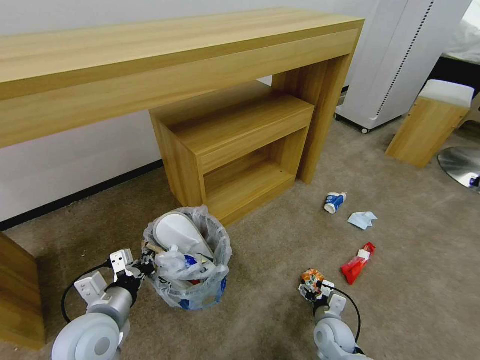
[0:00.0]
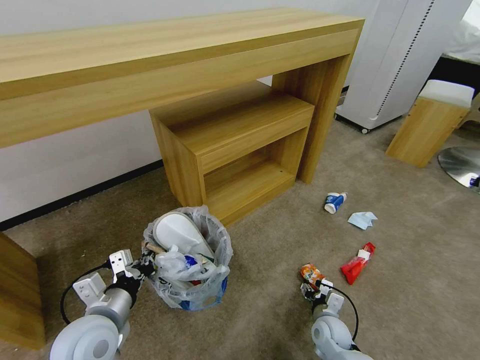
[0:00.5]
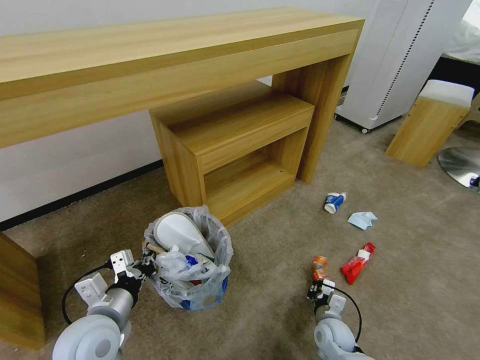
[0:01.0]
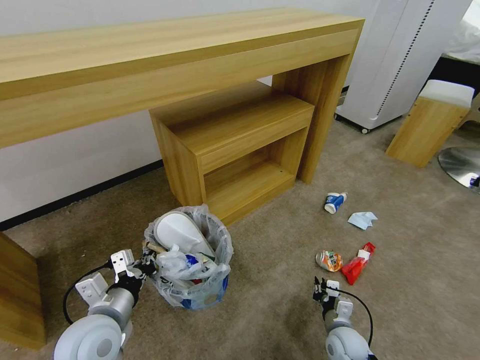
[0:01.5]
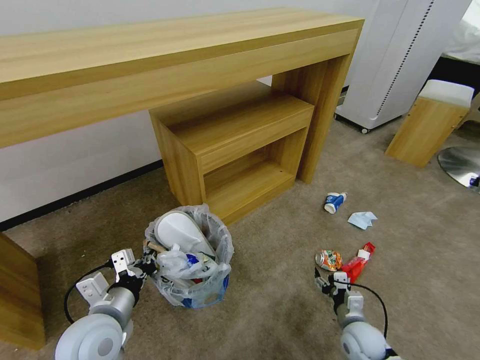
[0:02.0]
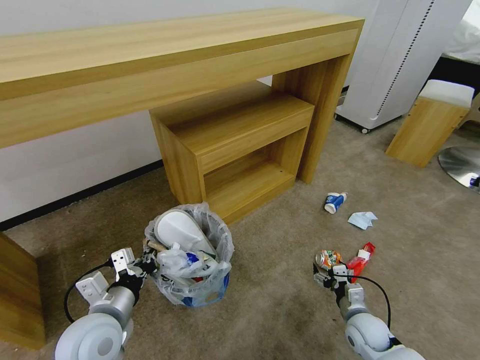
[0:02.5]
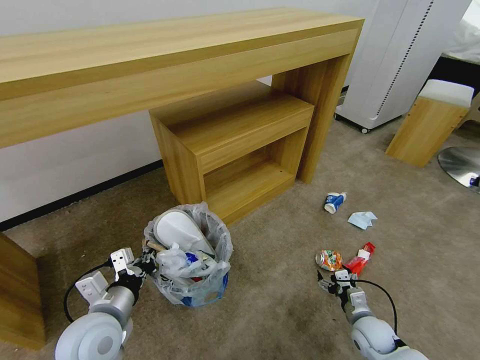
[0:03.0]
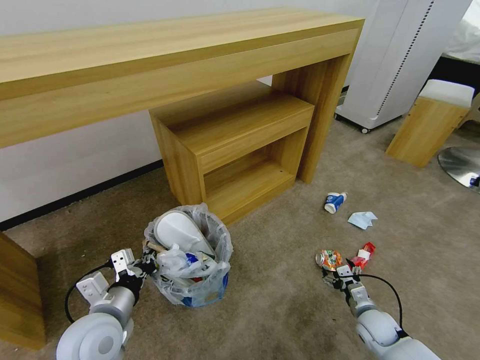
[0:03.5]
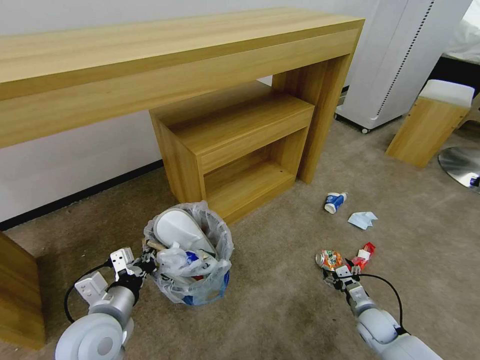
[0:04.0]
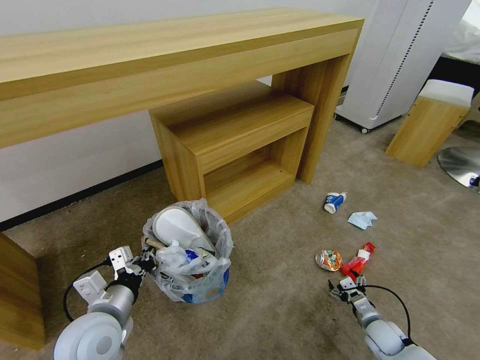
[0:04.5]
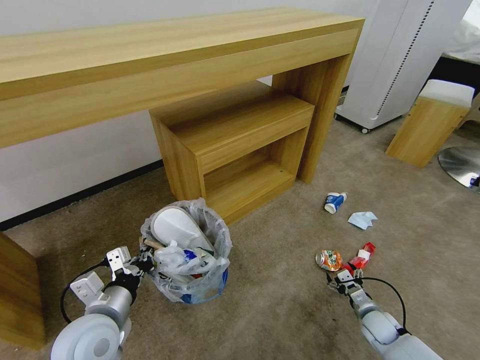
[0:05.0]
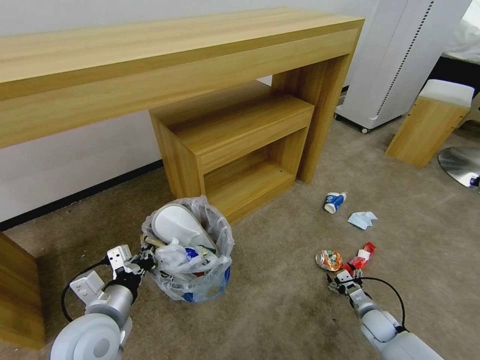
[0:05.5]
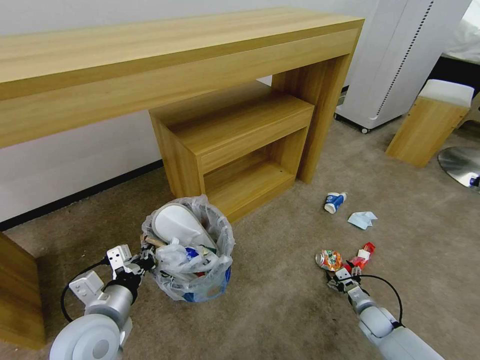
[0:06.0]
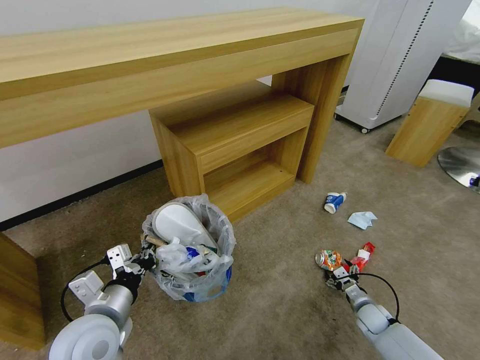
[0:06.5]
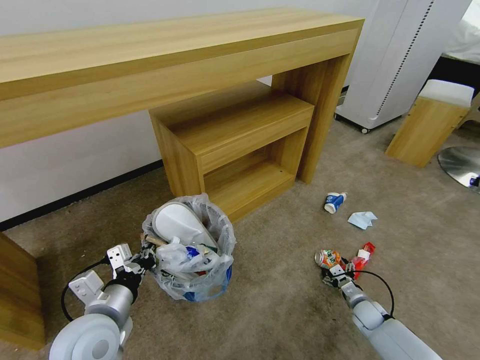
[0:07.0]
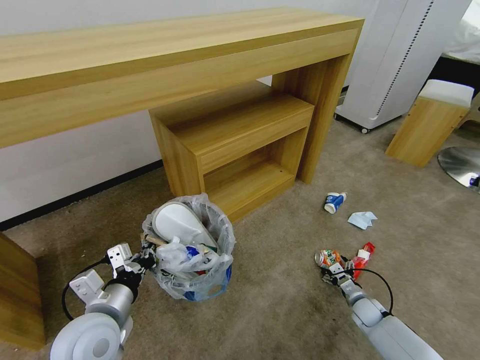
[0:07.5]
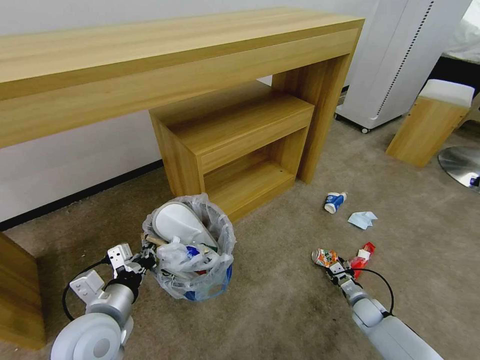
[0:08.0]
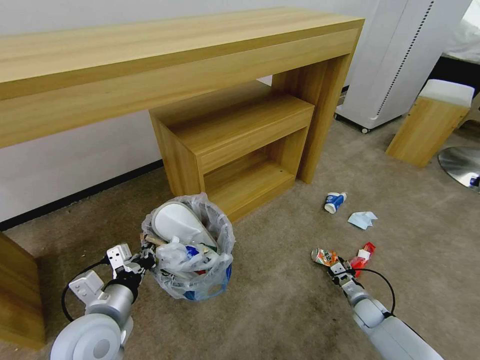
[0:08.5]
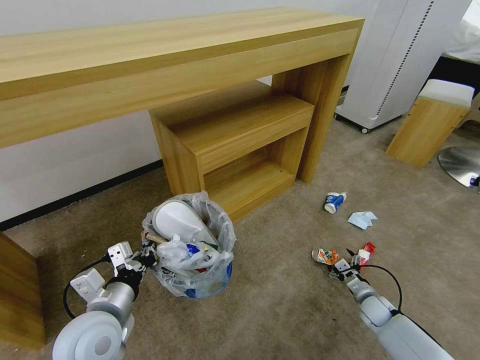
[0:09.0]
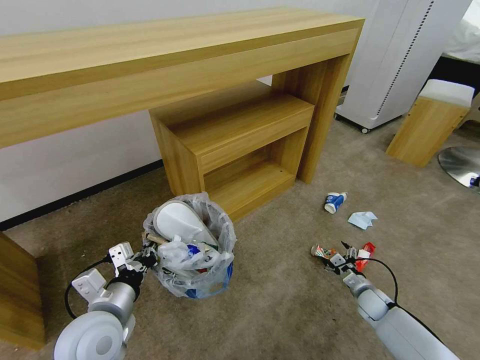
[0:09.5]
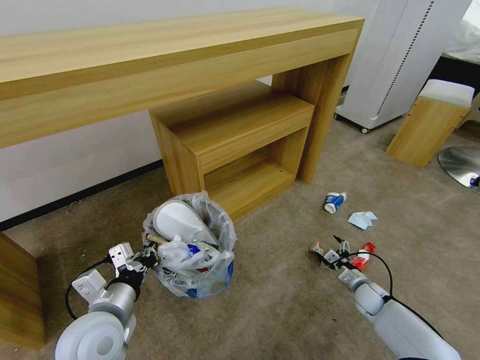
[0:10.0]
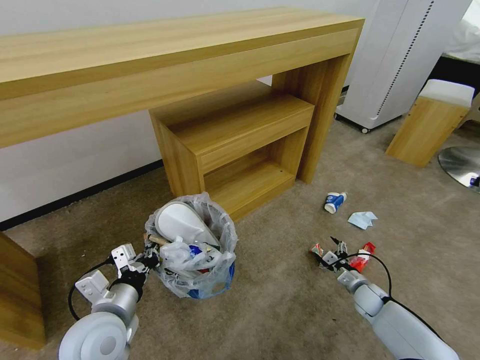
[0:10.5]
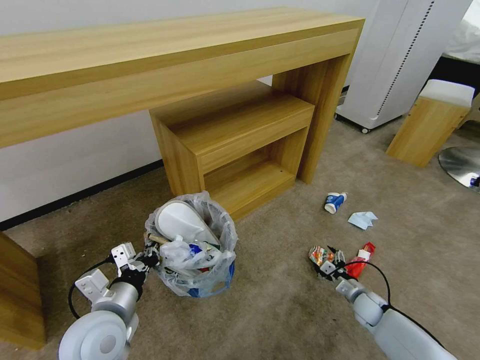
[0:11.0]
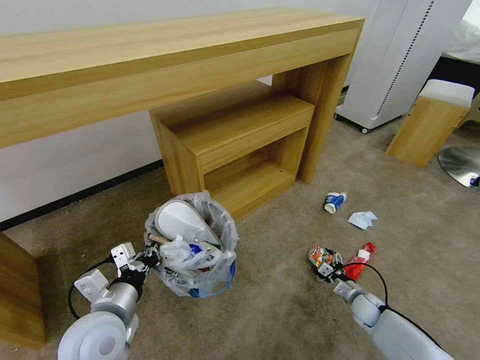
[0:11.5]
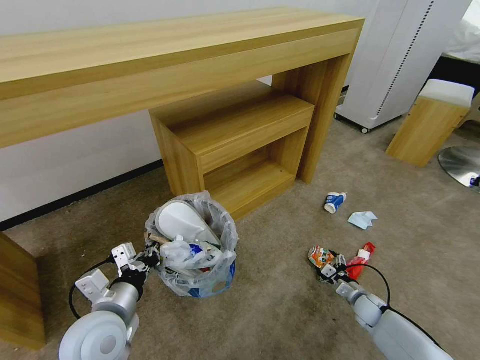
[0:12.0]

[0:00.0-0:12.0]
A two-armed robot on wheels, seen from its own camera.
Task of the whole recording: Pick up the trash bin and place the garbage on the floor into it.
0:00.0 to 0:02.0: The right gripper shifts approximately 5 cm to the right, and closes, then opens again.
0:02.0 to 0:04.0: The right gripper travels to the right by about 5 cm.
0:04.0 to 0:06.0: The right gripper ends up some 5 cm from where it was.
0:06.0 to 0:08.0: The right gripper closes.
0:08.0 to 0:10.0: The right gripper ends up roughly 5 cm from where it was, and opens up.
0:10.0 to 0:12.0: The grippers move only a little.

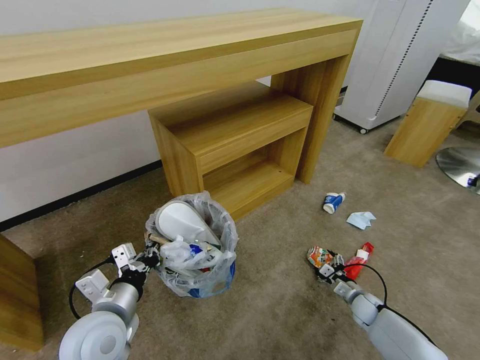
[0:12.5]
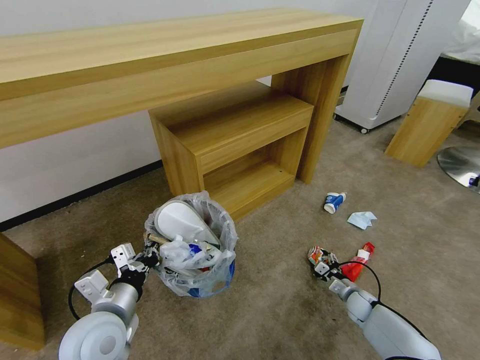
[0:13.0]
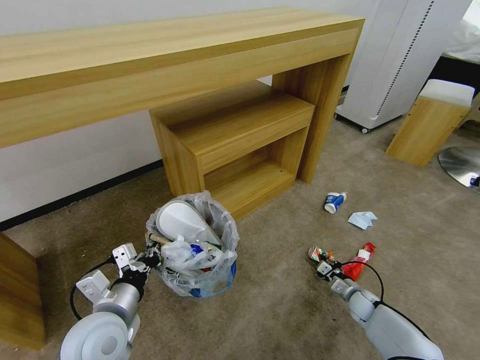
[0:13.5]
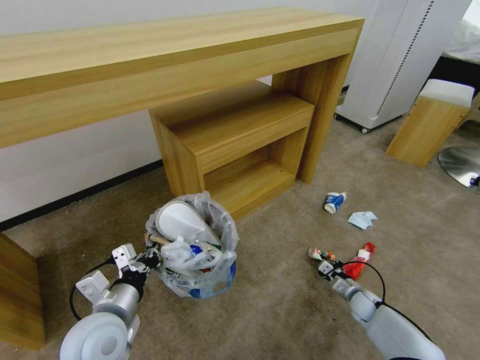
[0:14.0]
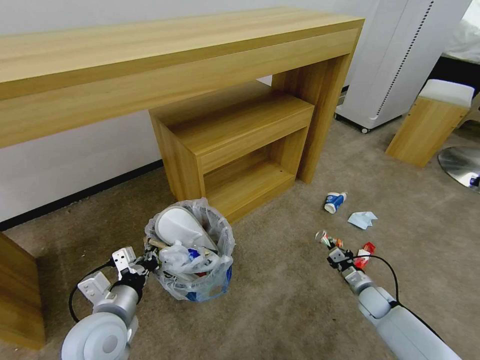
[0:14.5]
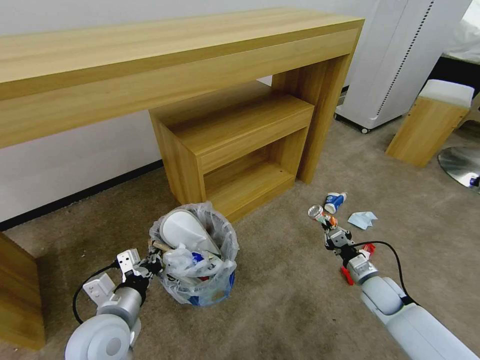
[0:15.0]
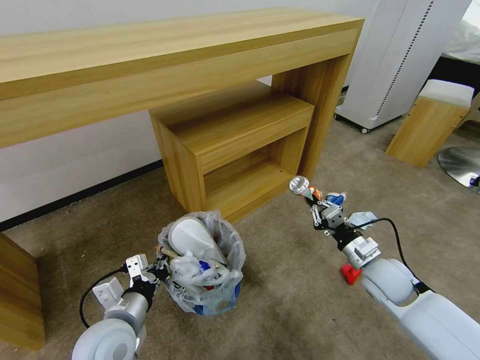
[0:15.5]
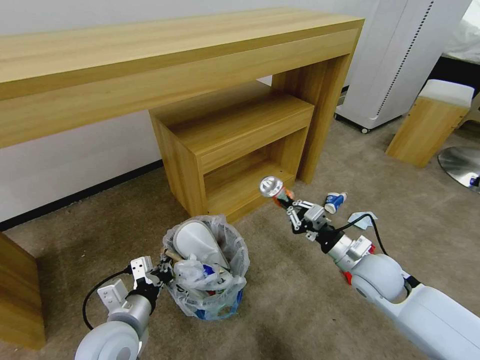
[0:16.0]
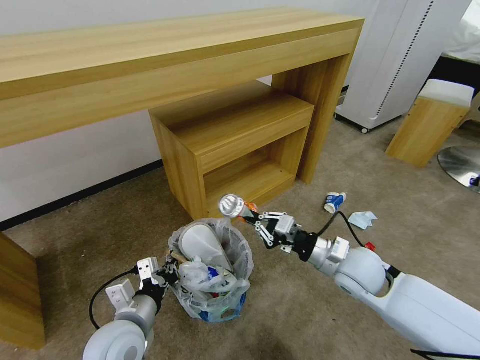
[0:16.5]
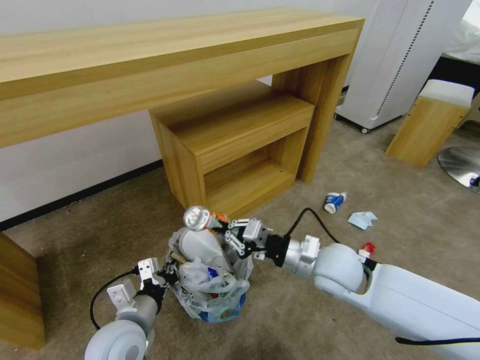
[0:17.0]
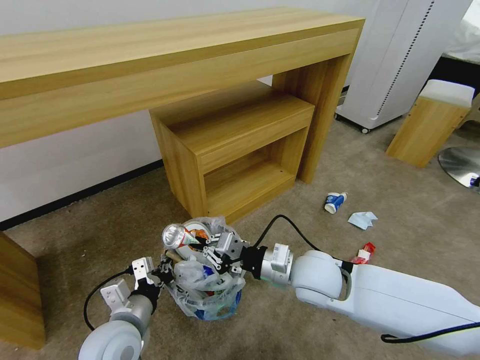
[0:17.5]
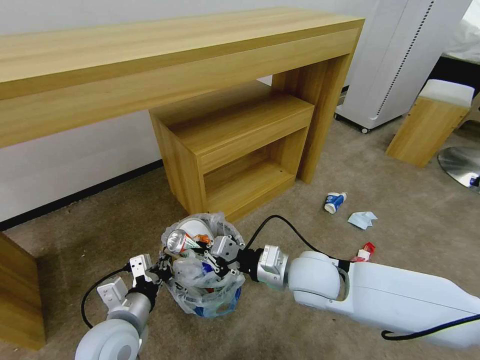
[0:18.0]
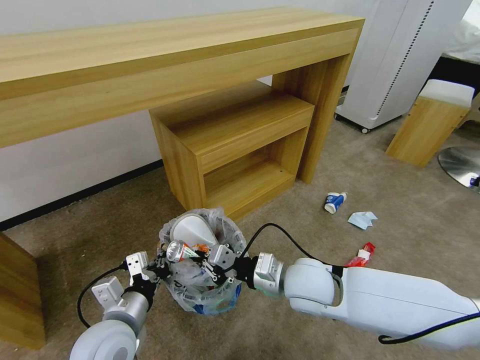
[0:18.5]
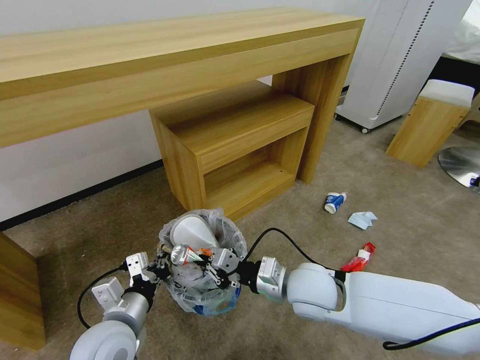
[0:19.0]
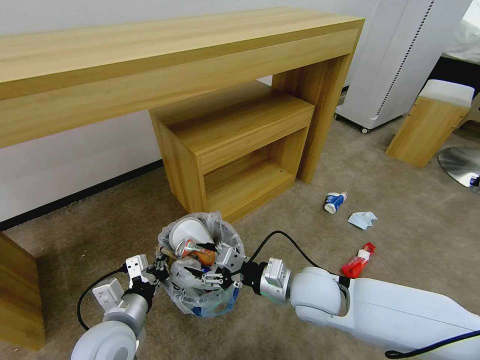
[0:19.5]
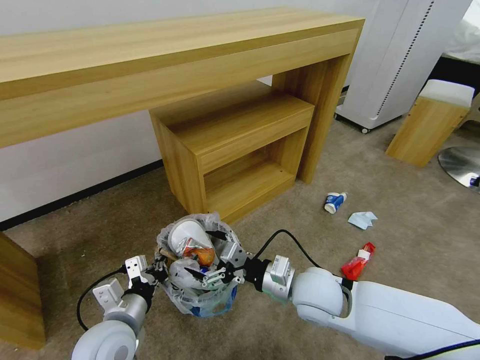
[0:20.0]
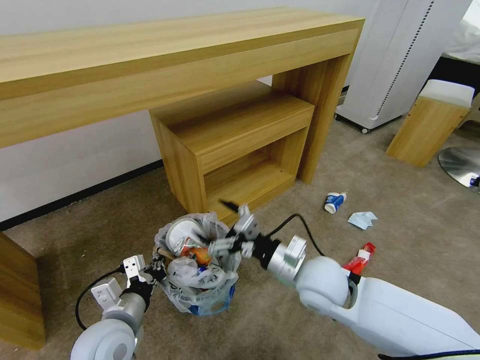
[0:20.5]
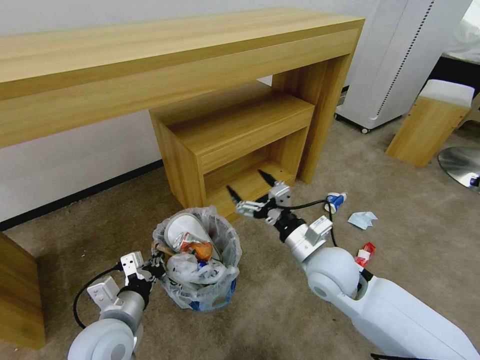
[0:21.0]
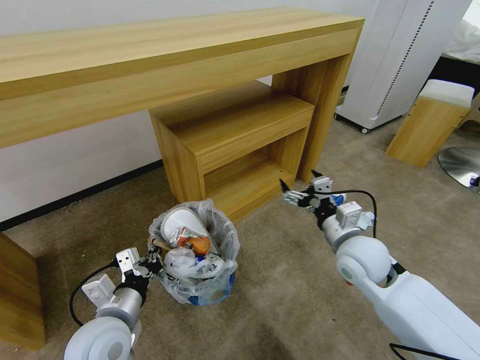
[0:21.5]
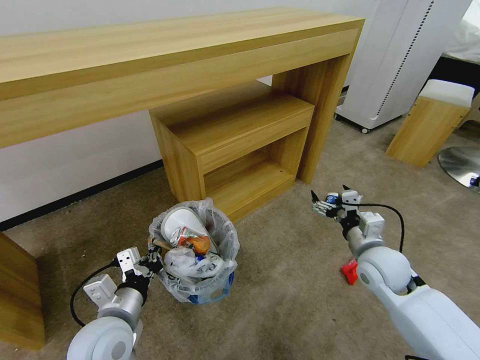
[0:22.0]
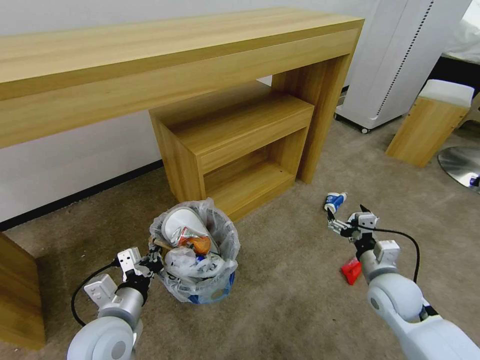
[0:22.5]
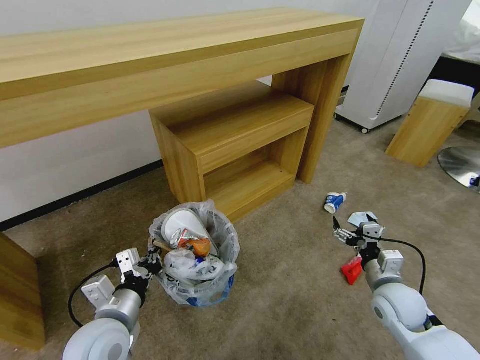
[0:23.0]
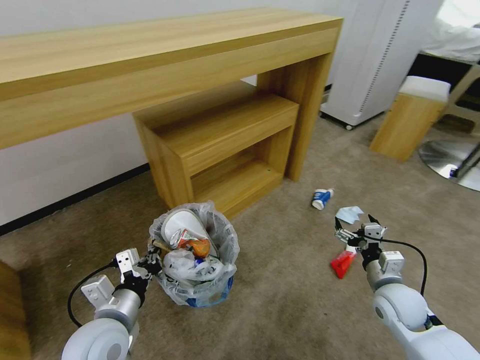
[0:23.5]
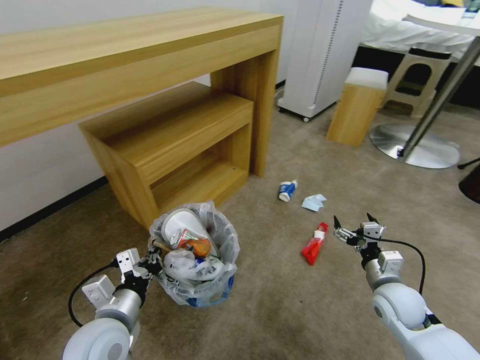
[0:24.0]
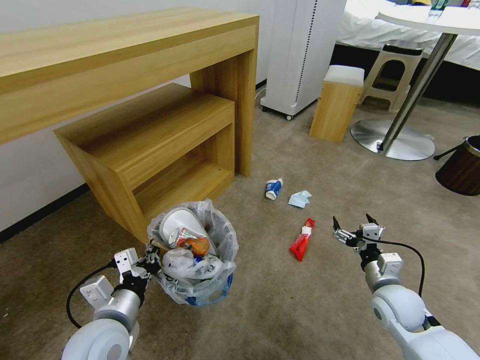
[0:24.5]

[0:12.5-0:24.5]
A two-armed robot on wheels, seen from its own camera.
Task of the whole recording: Pick up the trash bin and place the garbage on the floor into it.
0:12.5 to 0:14.5: The right gripper closes its fingers.
0:14.5 to 0:16.5: The right gripper moves upward and to the left, about 30 cm.
0:16.5 to 0:18.5: The right gripper heads to the left, covering about 10 cm.
0:18.5 to 0:20.5: The right gripper opens its fingers.
0:20.5 to 0:22.5: The right gripper is displaced to the right and downward by roughly 20 cm.

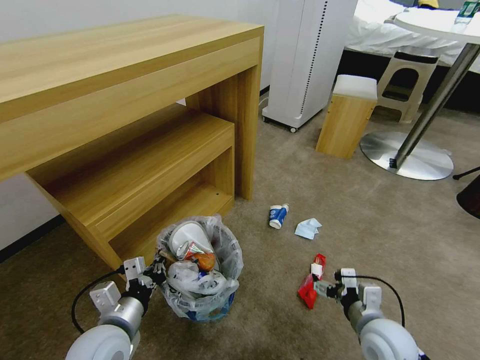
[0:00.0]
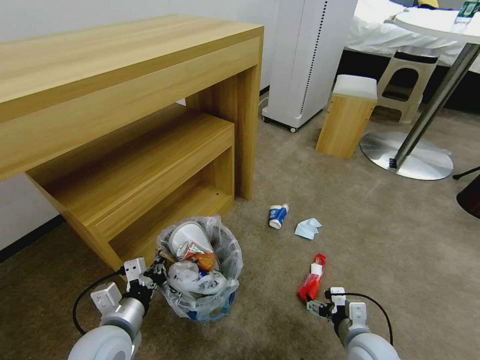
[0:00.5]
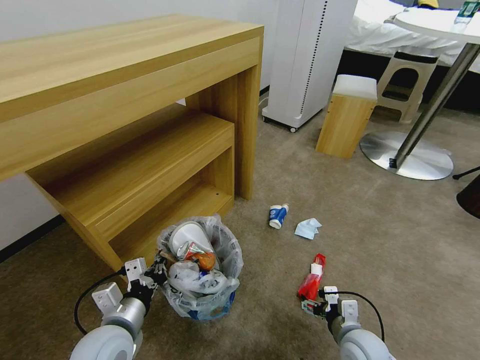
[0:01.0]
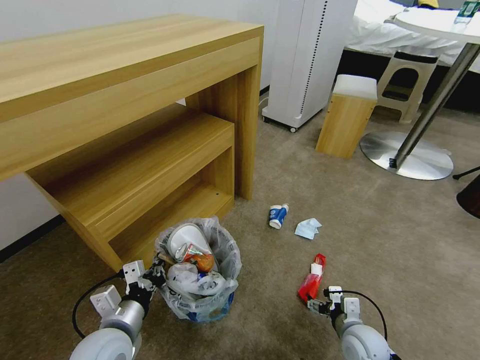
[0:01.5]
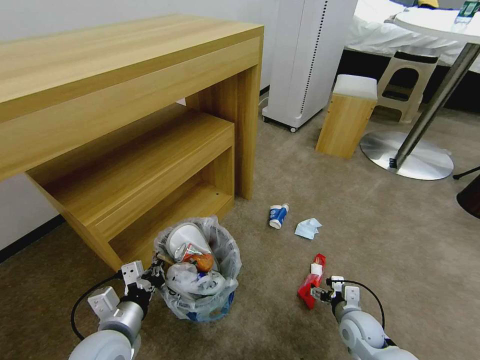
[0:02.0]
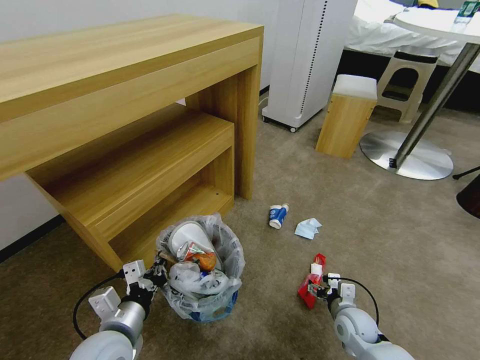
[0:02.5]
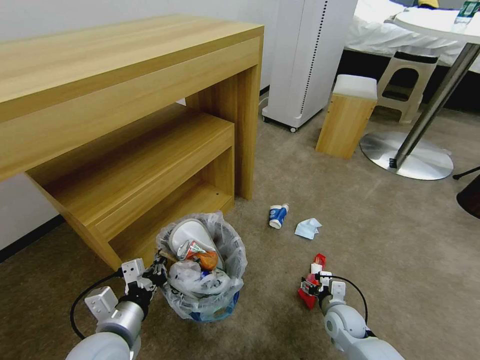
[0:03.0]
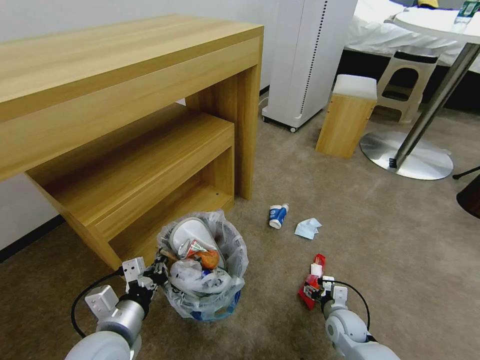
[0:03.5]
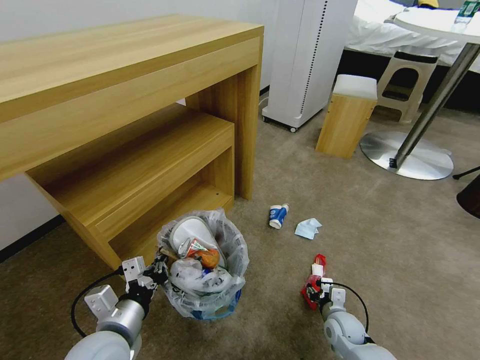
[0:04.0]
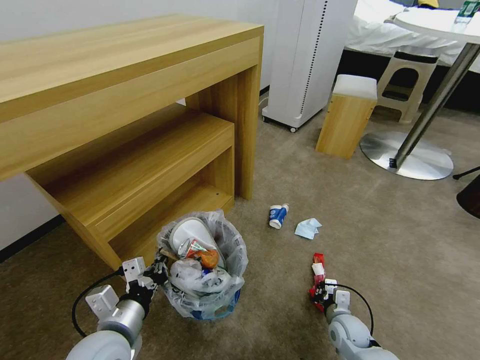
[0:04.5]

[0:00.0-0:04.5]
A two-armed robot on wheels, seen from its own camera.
Task of the whole recording: Pick up the trash bin and place the garbage on the floor into it.
0:00.0 to 0:02.0: The right gripper goes some 10 cm downward.
0:02.0 to 0:04.5: The right gripper closes its fingers.
